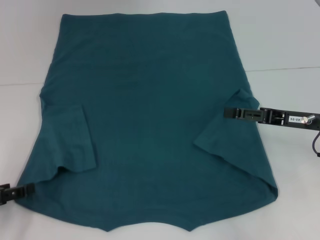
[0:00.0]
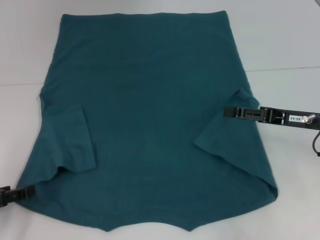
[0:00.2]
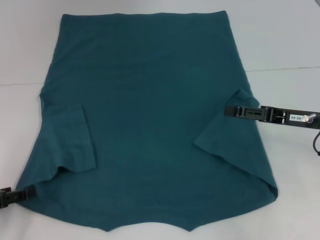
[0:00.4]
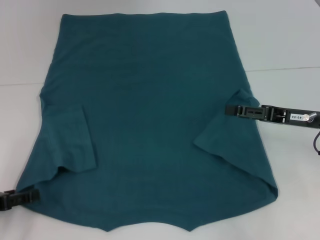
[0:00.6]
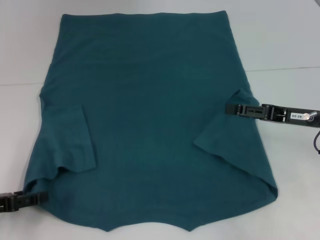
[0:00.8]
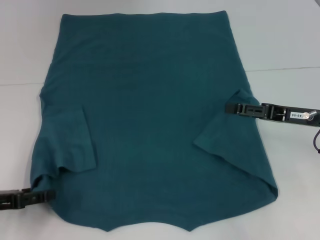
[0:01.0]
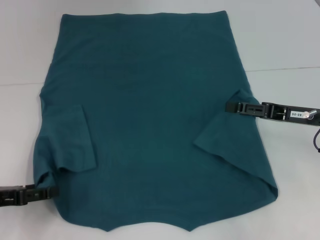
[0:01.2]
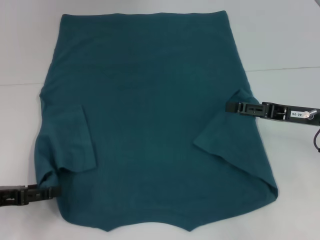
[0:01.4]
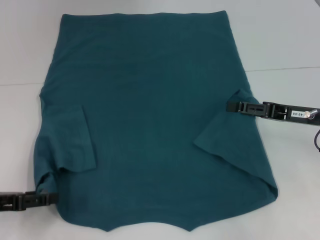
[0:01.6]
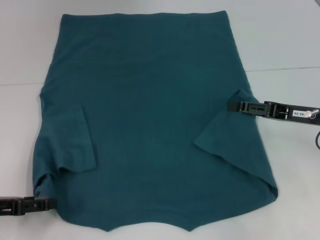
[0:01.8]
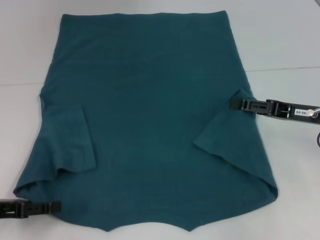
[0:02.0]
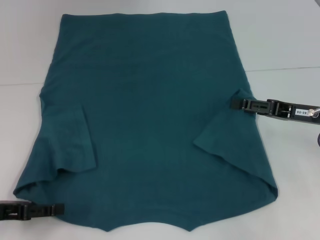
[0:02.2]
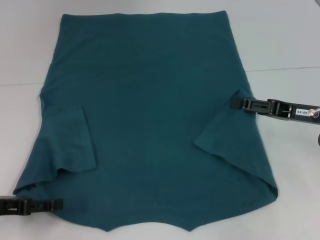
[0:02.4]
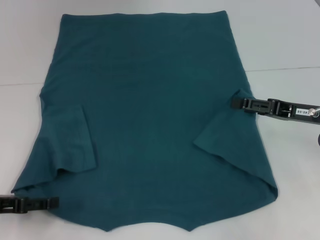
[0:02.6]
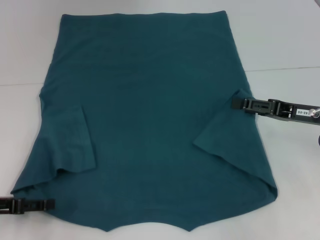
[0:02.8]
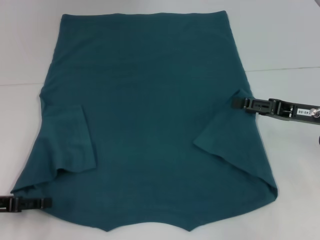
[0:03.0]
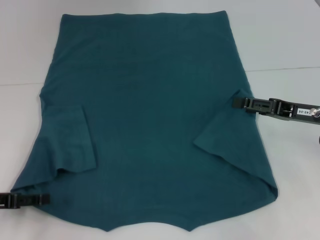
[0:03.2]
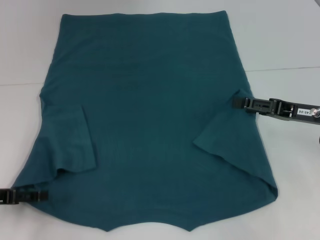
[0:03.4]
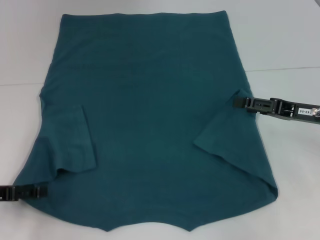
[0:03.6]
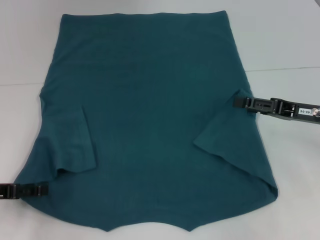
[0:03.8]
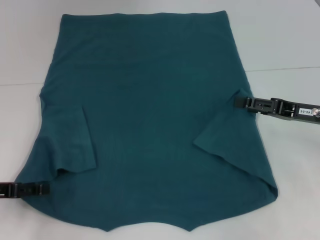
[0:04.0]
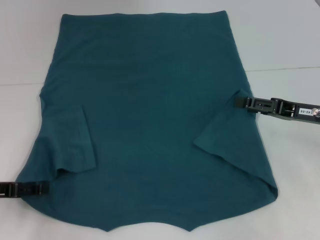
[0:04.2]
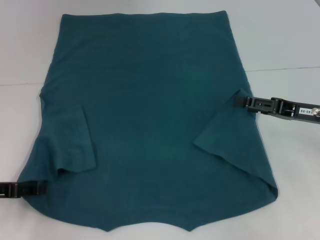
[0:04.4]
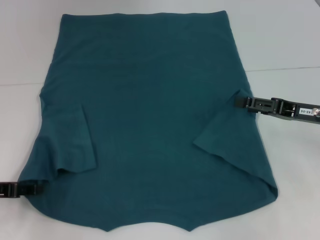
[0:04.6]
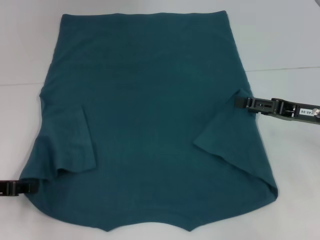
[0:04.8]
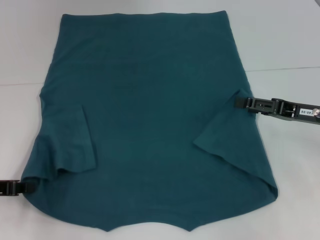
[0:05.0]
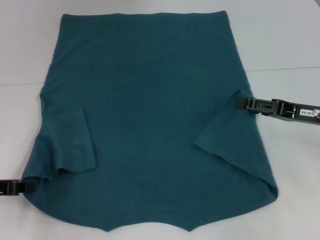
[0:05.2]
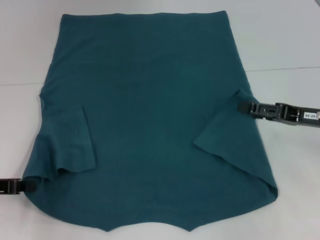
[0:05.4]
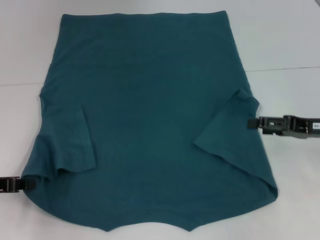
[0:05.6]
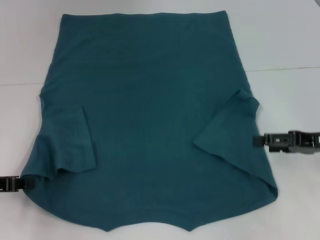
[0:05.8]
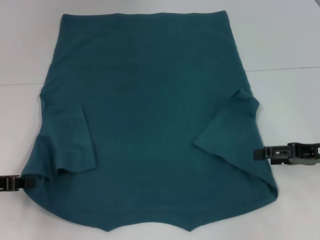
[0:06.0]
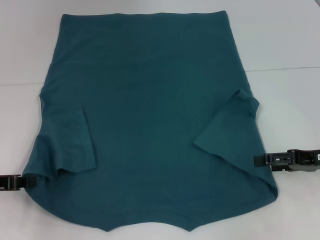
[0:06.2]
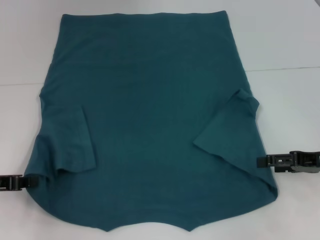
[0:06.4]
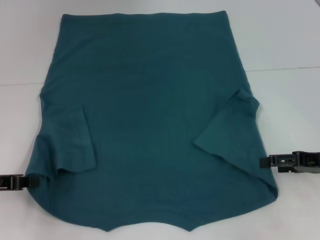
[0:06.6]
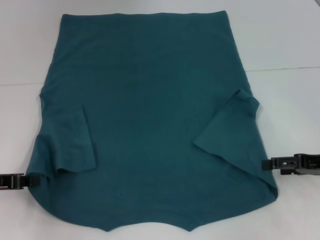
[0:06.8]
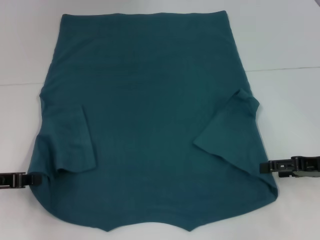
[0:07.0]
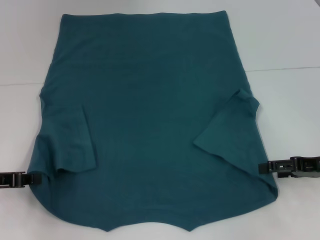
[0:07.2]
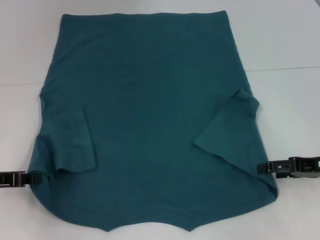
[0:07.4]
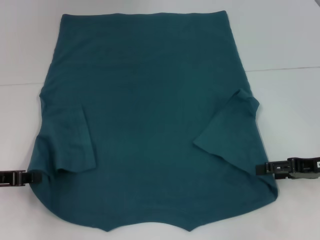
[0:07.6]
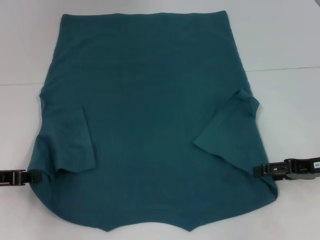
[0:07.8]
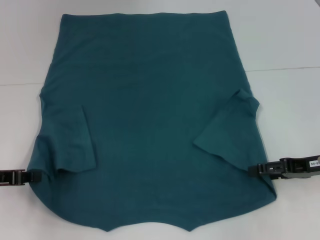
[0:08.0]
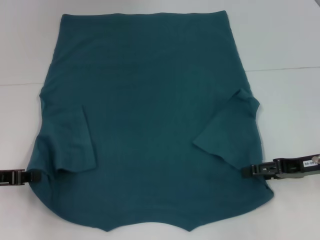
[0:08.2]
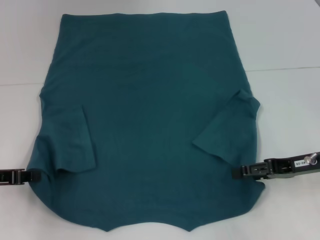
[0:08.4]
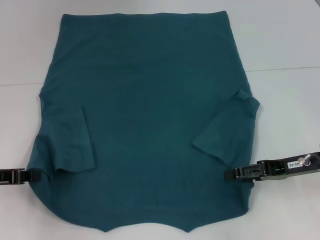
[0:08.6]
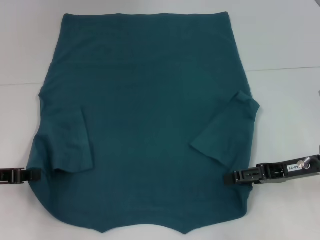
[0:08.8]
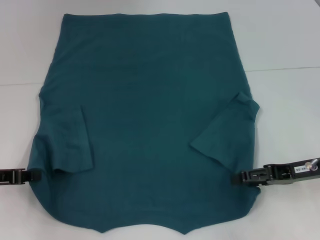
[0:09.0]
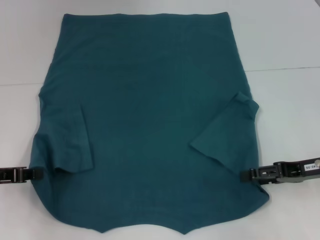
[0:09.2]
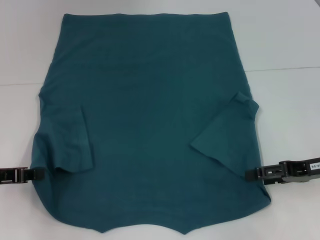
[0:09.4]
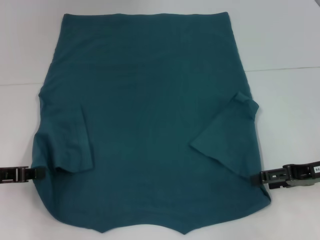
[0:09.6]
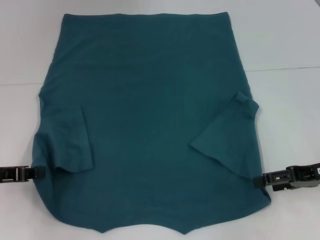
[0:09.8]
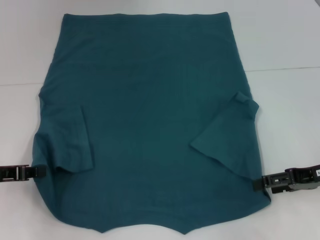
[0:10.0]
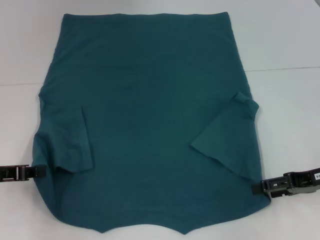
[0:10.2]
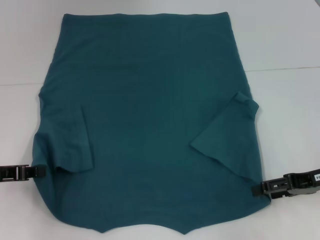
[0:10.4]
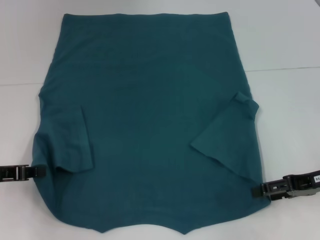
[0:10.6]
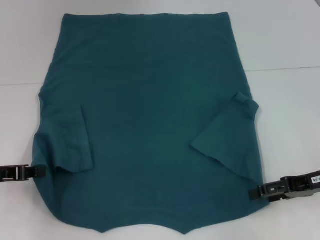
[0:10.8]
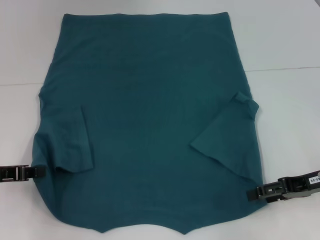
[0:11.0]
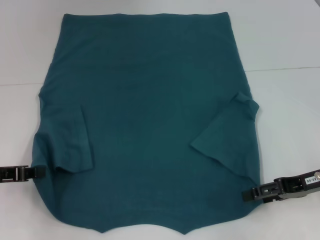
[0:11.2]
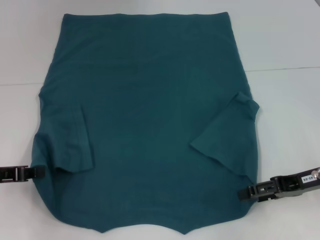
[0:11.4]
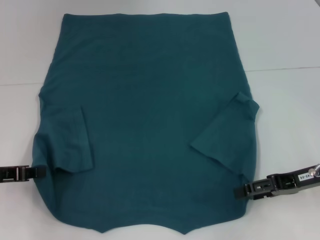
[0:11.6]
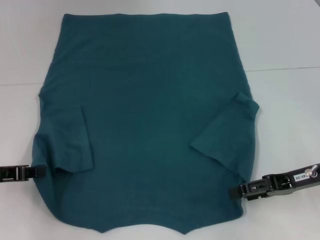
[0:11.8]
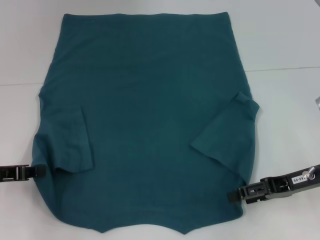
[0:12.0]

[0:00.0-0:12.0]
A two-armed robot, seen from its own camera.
Step, 0:00.0 to 0:05.2: Grab the bottom left corner with your left hand.
0:00.0 to 0:04.4: There are only small adjustments of the grippers.
0:04.4 to 0:06.0: The left gripper closes.
0:06.0 to 0:12.0: The grippers stay close to where they were, moving slightly.

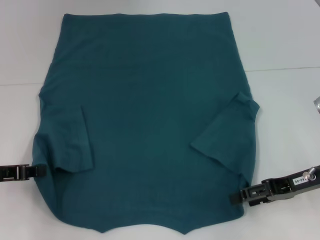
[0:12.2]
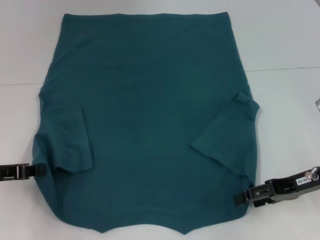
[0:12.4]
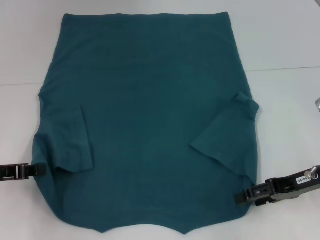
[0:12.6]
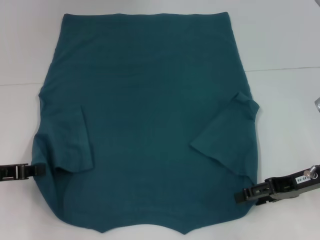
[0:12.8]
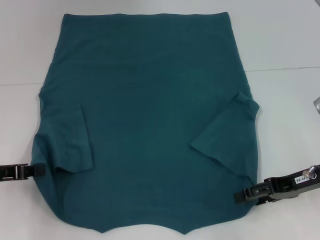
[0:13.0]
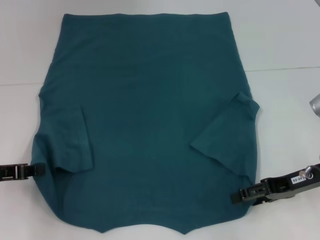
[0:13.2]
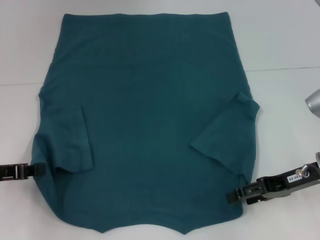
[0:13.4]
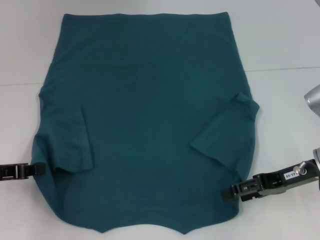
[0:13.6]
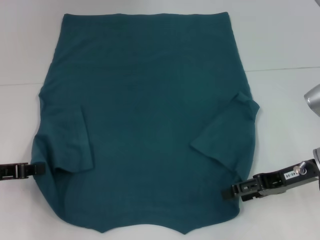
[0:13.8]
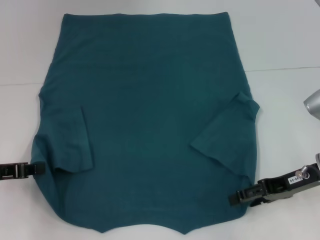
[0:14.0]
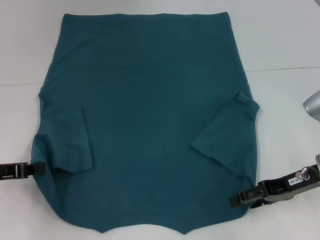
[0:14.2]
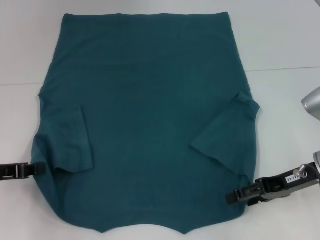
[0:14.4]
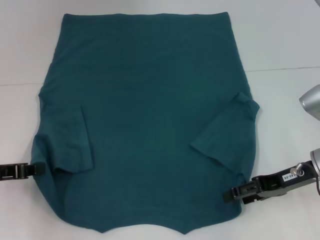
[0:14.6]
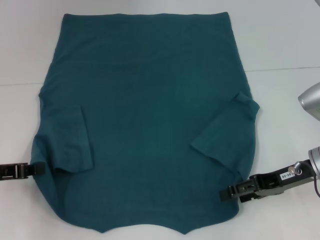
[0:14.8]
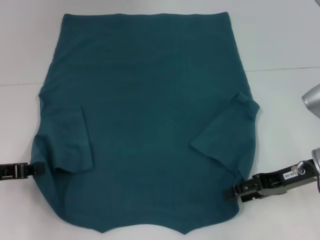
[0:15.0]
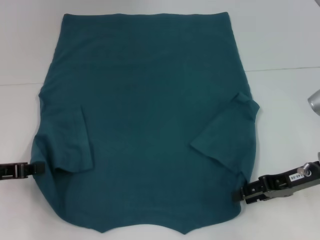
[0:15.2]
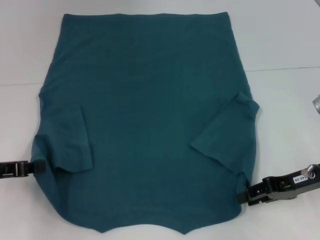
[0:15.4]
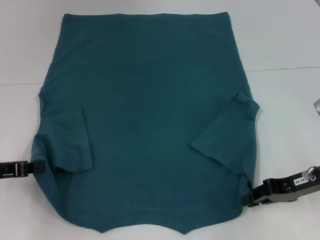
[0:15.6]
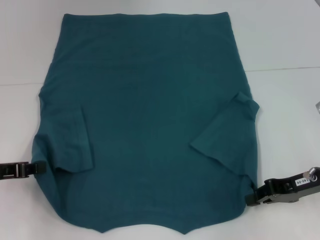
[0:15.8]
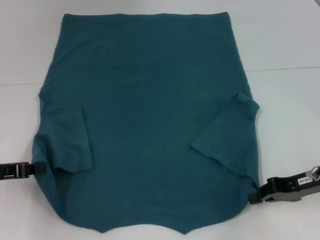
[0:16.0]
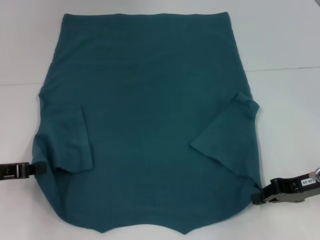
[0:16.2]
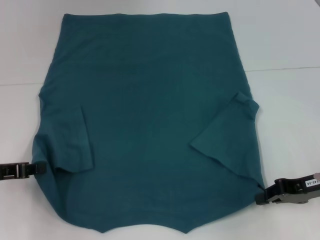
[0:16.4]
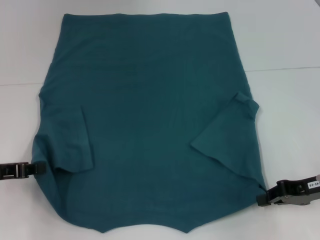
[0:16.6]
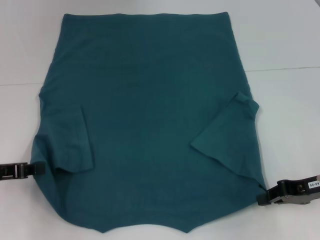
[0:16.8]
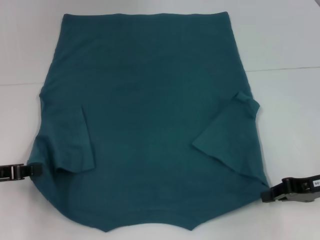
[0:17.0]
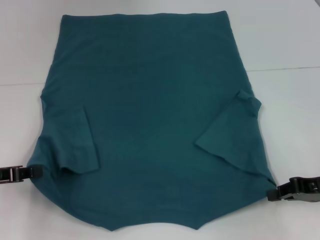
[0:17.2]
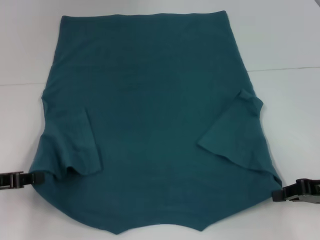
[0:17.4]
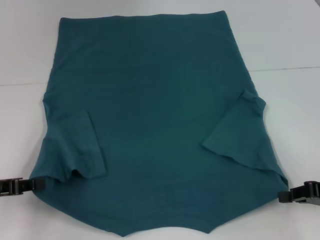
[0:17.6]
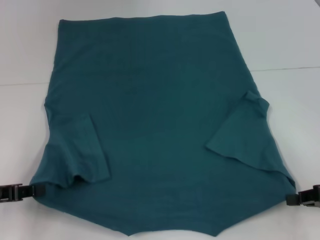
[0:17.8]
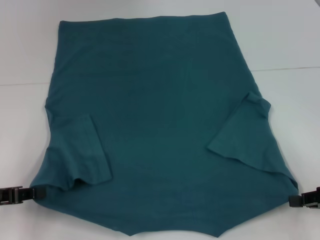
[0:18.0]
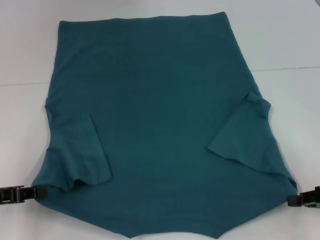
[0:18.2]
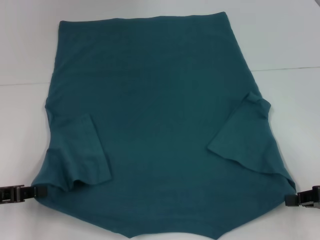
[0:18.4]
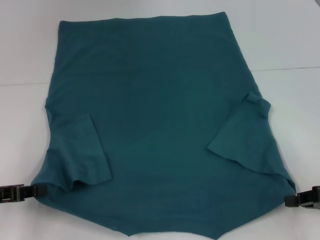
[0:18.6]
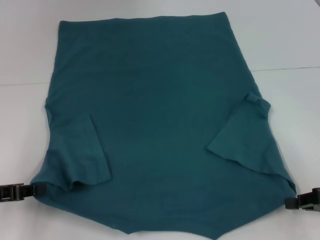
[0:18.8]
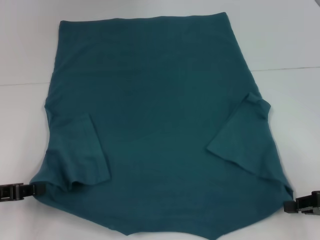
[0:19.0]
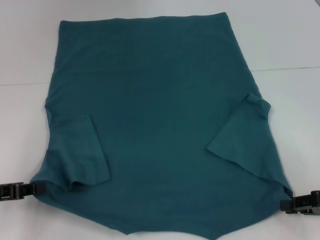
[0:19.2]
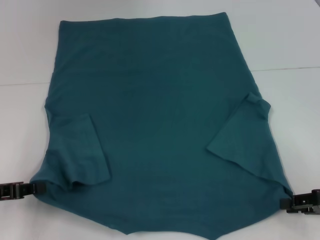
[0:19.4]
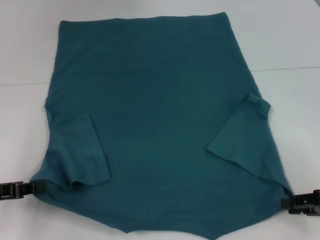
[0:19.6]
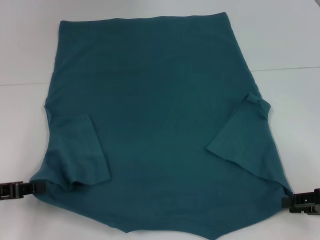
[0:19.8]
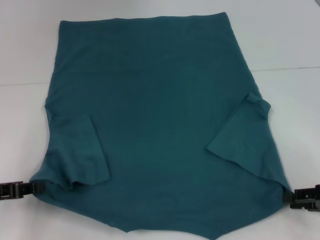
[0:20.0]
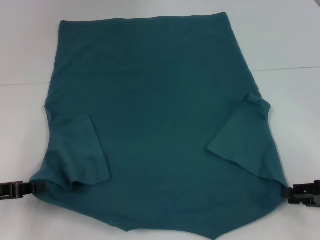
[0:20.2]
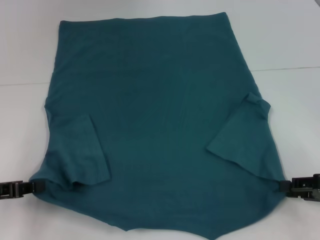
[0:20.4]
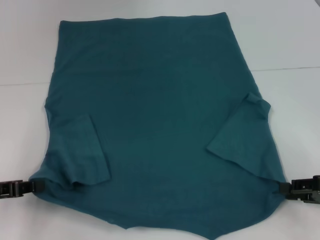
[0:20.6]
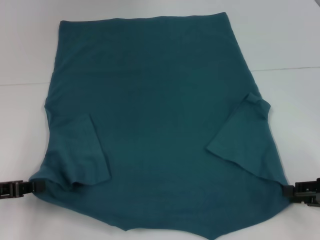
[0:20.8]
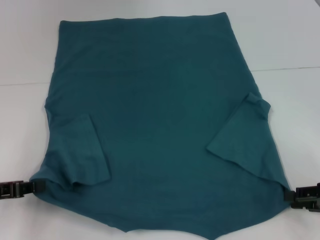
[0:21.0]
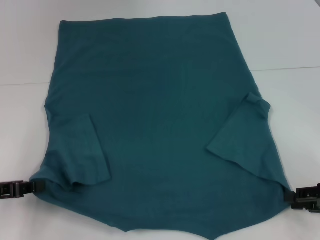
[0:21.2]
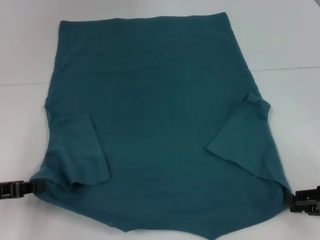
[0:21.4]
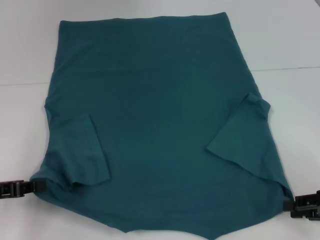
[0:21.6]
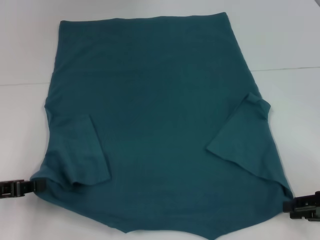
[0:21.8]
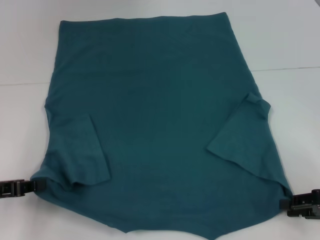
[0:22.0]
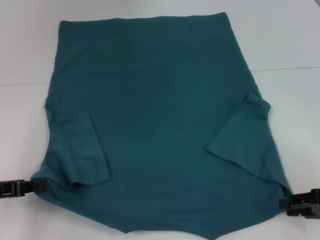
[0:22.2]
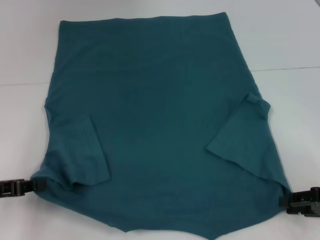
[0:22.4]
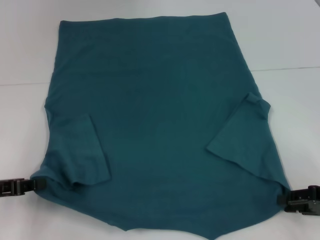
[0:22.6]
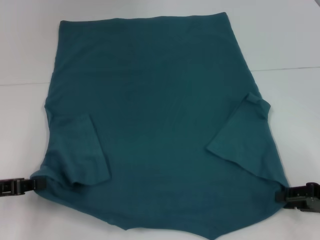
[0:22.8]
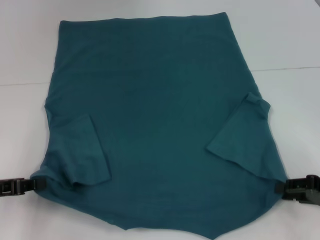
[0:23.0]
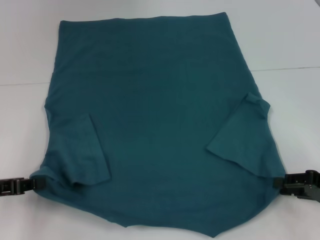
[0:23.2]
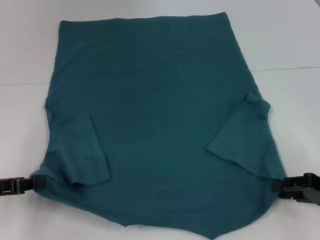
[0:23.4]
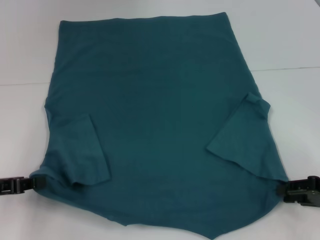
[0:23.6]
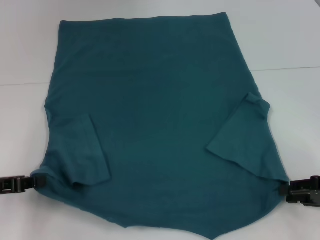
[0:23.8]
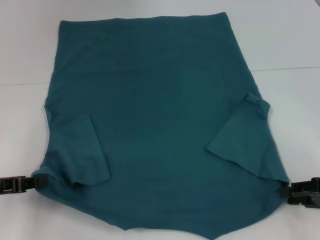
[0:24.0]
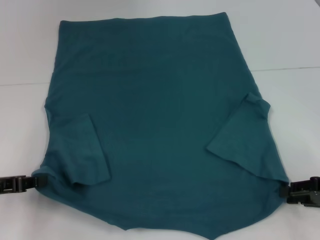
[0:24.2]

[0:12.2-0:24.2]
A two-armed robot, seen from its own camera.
Step, 0:12.2 to 0:16.4: Grab the bottom right corner with your right hand.
0:12.2 to 0:15.2: The grippers make only small movements.
0:15.2 to 0:16.6: The right gripper closes.
0:16.6 to 0:18.2: The right gripper moves roughly 5 cm.
0:18.2 to 0:19.8: The right gripper opens.
0:19.8 to 0:21.2: The grippers stay close to where they were, moving slightly.
0:21.2 to 0:22.6: The two grippers keep their place.
0:22.6 to 0:24.2: The grippers move only a little.
